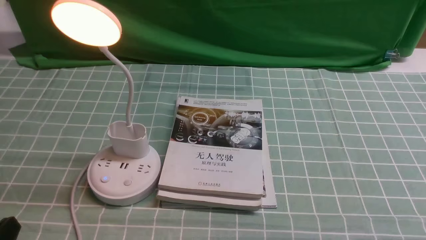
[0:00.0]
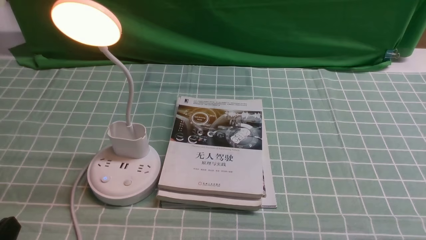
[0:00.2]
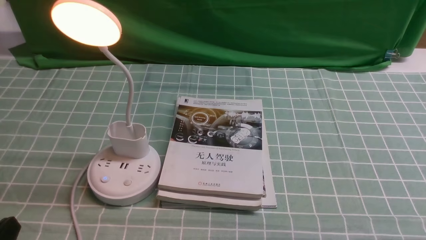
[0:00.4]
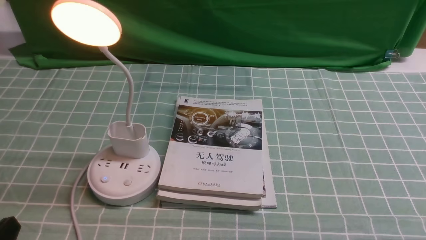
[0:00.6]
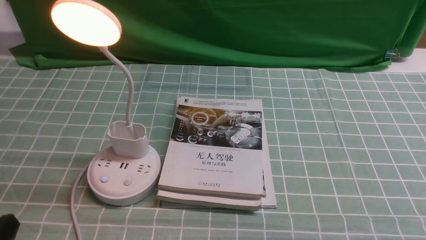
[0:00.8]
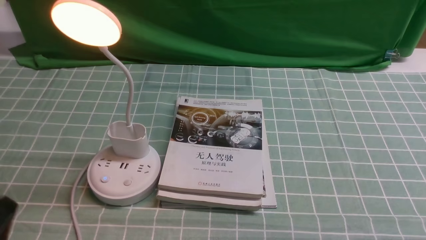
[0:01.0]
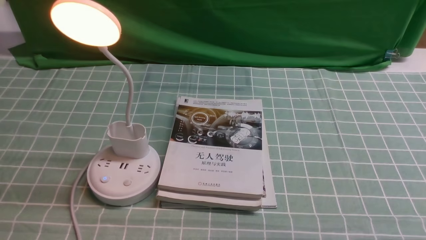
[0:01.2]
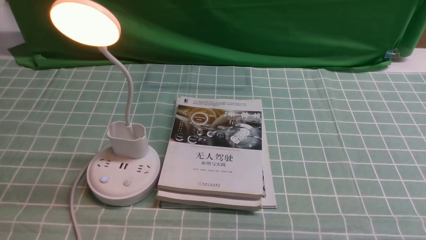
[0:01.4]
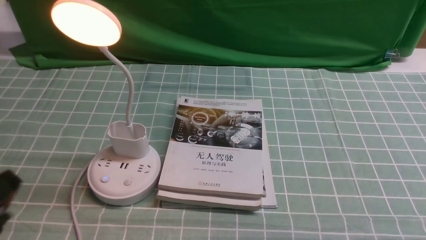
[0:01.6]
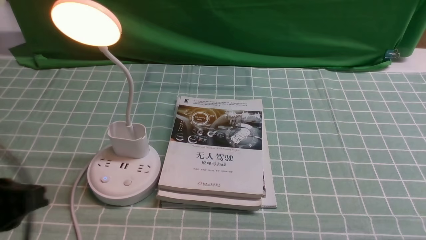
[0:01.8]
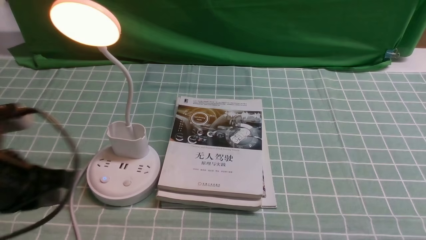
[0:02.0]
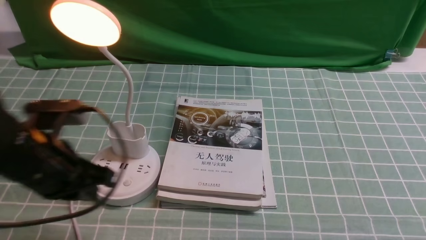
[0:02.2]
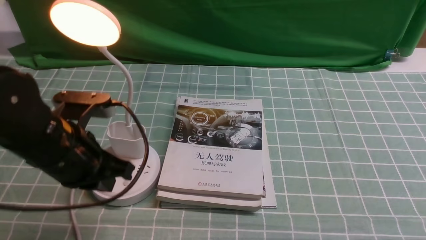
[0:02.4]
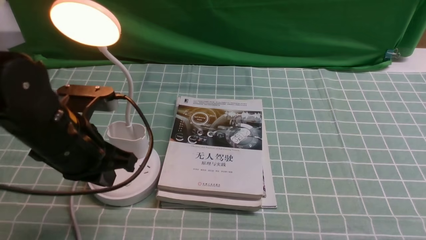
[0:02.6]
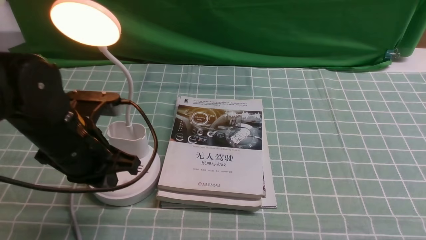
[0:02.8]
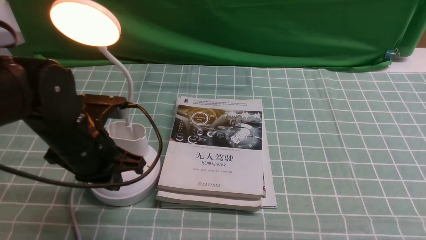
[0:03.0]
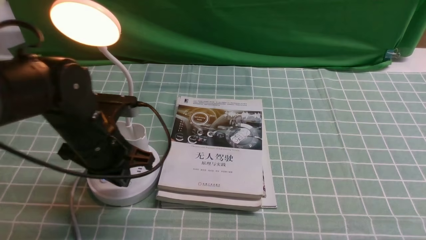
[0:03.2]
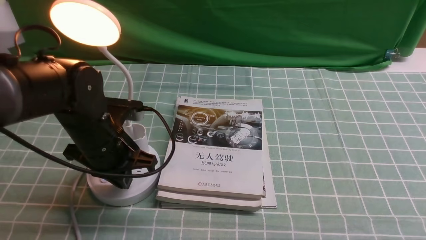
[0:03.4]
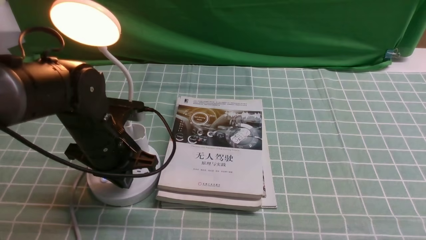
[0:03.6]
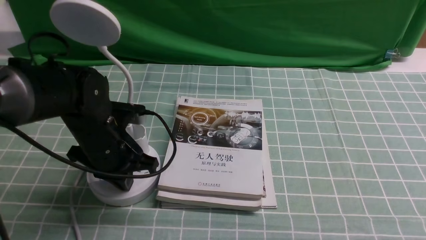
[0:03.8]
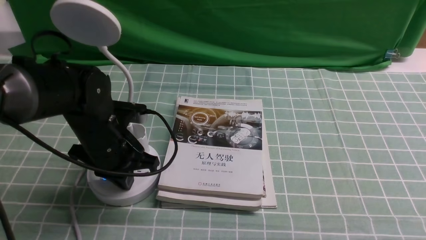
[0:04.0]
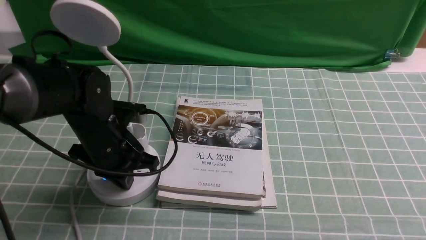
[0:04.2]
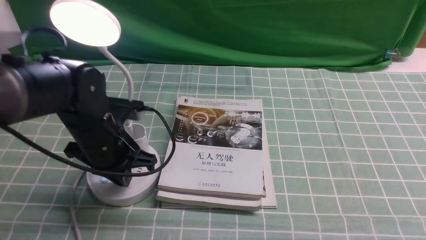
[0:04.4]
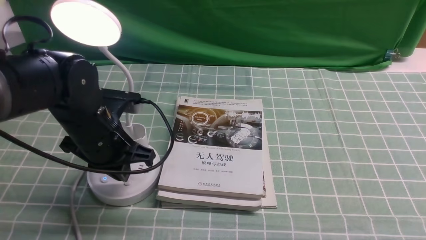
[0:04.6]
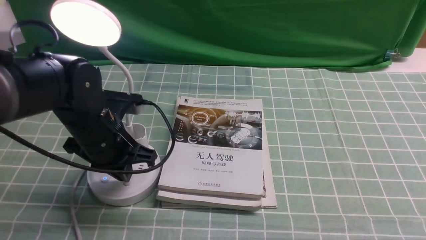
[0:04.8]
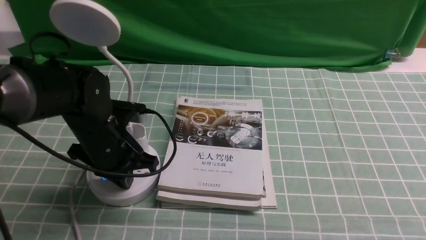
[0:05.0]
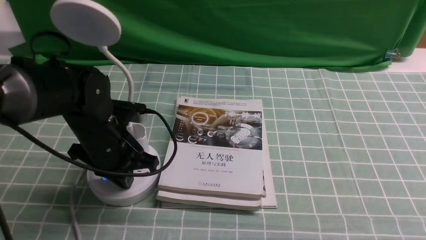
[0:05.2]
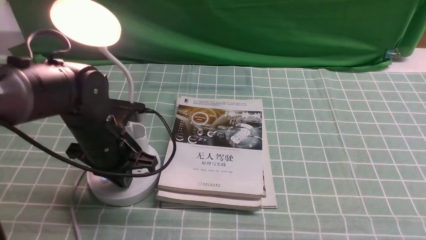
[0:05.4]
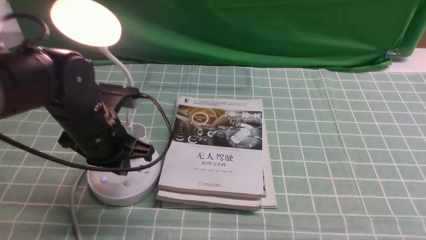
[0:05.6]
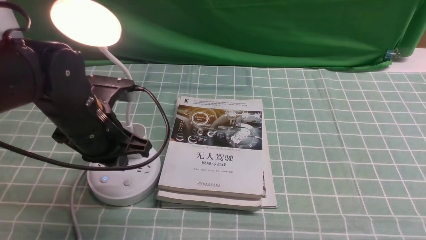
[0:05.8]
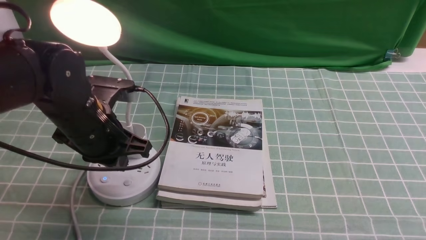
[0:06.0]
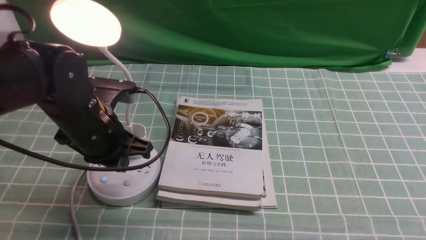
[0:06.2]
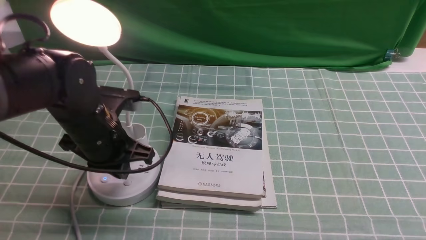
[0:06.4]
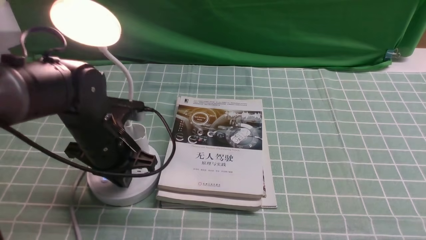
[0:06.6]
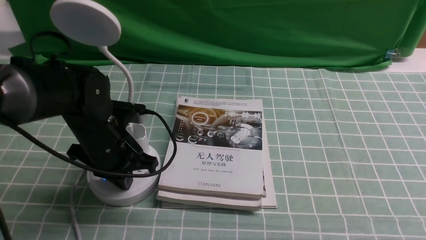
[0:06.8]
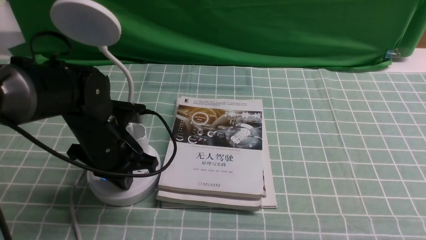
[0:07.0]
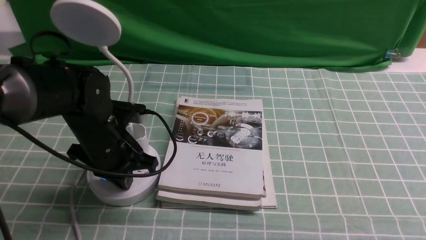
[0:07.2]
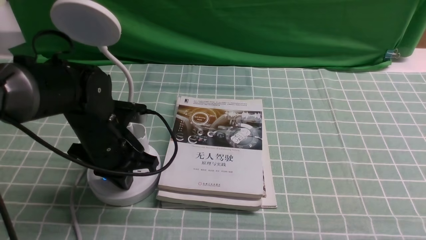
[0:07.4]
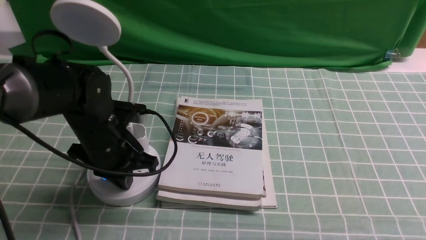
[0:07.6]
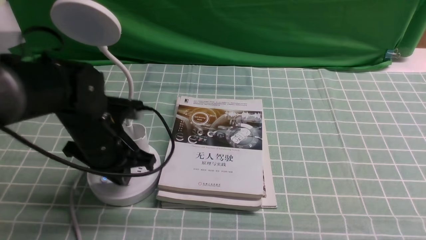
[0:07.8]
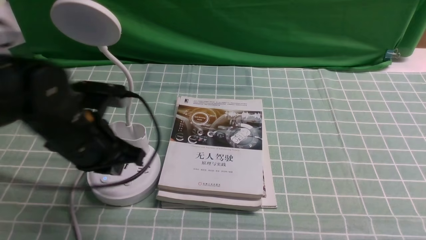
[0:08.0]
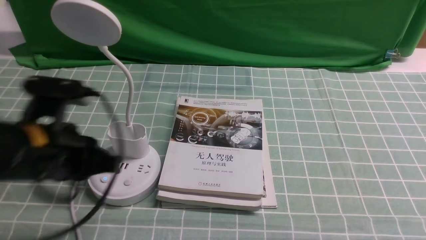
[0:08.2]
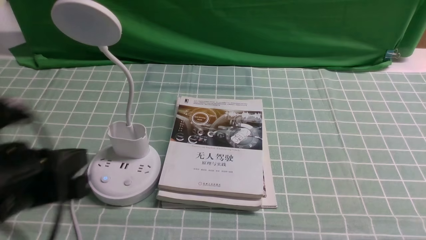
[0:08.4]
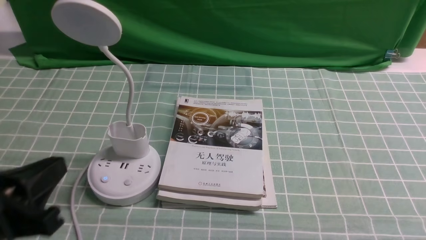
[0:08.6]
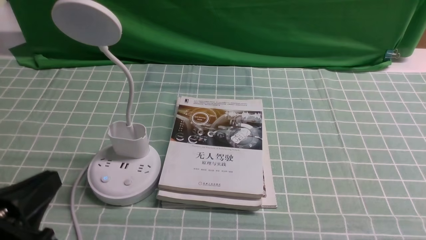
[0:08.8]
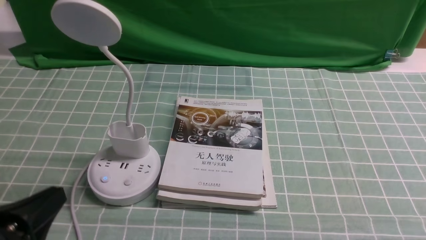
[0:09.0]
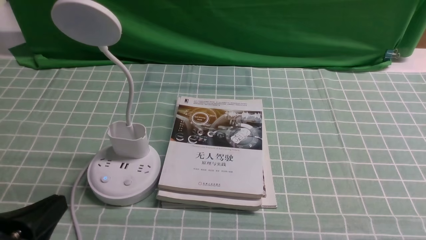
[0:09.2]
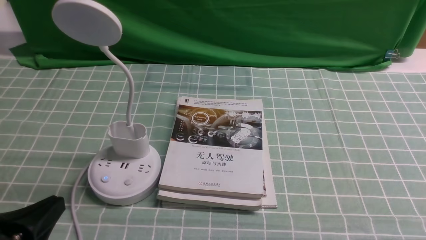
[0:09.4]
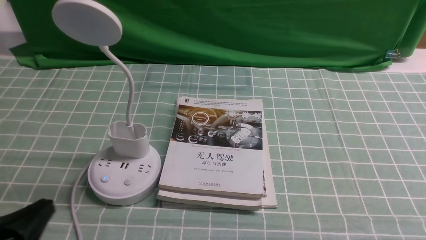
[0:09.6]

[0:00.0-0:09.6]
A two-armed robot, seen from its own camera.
Task of the whole recording: turn off the desk lamp on the blue coffee tablecloth by hand.
Step, 0:00.0 to 0:07.4: use the left arm to press the button switch on the lamp holder.
0:01.6 to 0:03.2: The left gripper goes approximately 20 cm forward.
0:03.2 to 0:08.0: The grippers stay close to where they were, moving slightly.
0:08.0 to 0:09.6: The left gripper shifts approximately 20 cm backward.

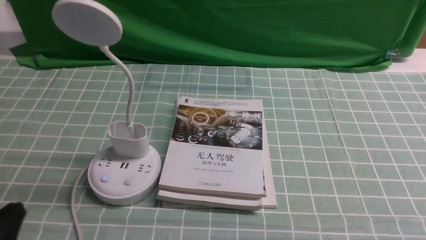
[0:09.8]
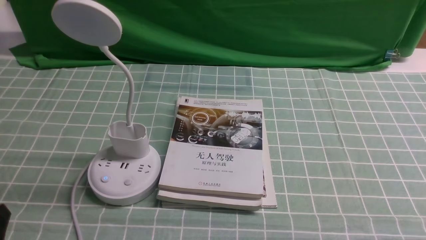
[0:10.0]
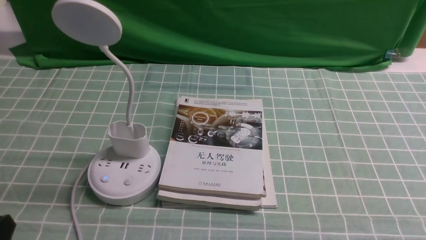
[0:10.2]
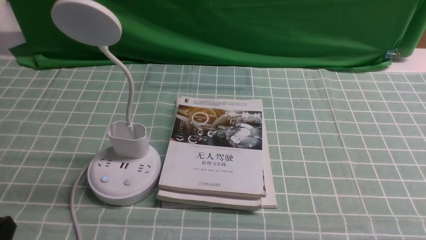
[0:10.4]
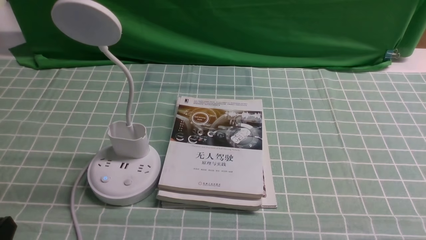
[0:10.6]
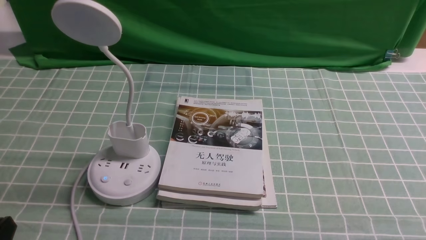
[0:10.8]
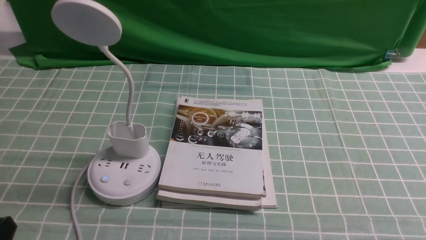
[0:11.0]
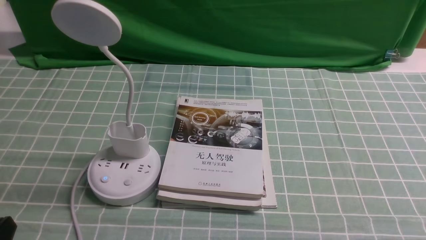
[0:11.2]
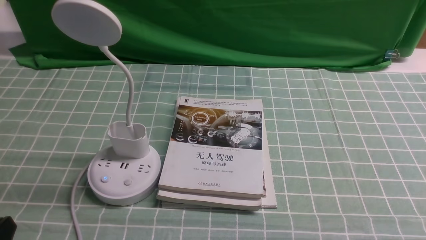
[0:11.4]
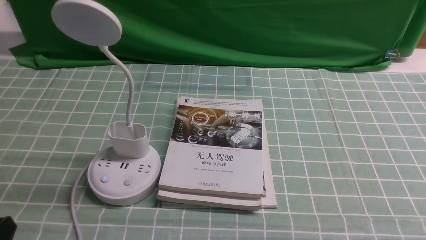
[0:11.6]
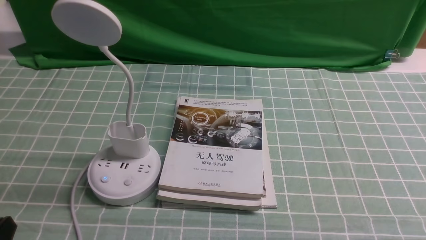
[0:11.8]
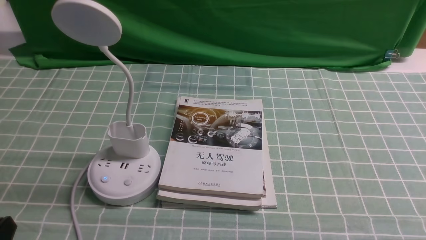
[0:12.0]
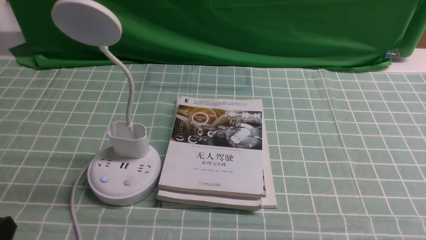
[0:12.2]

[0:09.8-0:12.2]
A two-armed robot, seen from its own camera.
Task of the whole recording: turn off the desk lamp on the blue coffee tablecloth by hand.
0:11.0 to 0:12.2: The two grippers keep their place.
